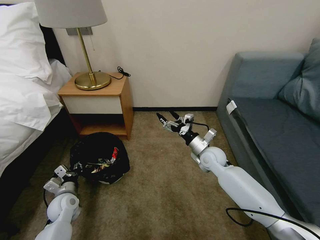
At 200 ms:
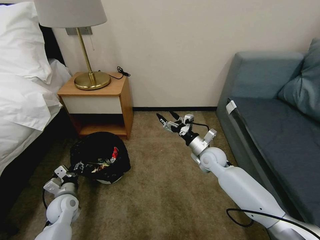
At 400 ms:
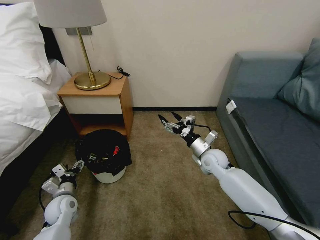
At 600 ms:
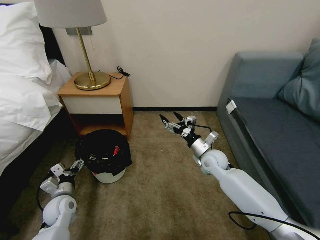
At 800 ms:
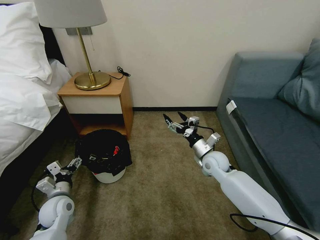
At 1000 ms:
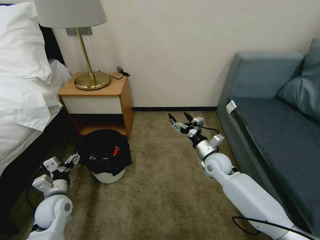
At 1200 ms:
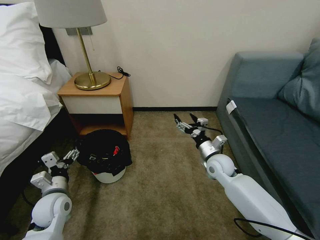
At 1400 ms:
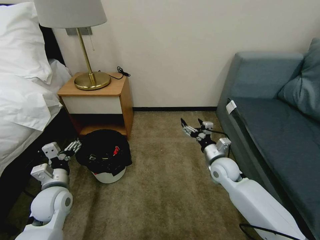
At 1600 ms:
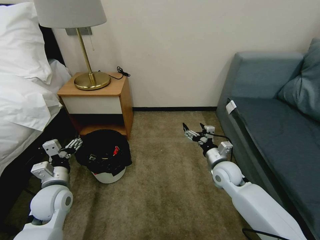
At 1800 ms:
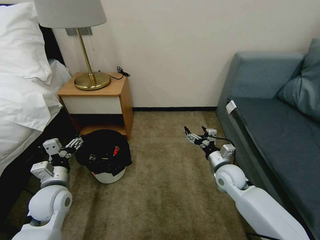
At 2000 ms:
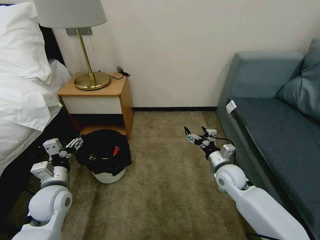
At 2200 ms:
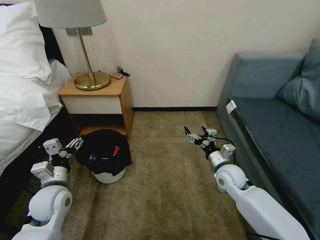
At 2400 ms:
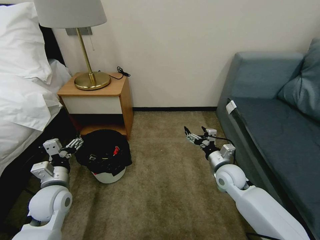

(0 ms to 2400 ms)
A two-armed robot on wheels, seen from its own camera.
Task of the whole recording: Pick up the trash bin, then pick up the garbage on the floor and place it into the trash bin.
0 ms - 1200 ms: The left gripper goes about 10 cm upward, and opens its fingers.
1200 ms - 2400 ms: The left gripper moves roughly 5 cm.

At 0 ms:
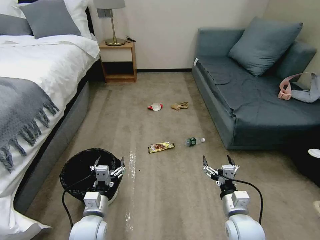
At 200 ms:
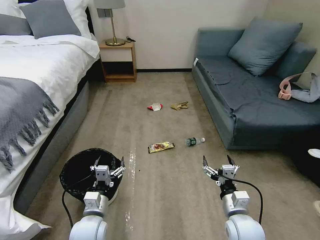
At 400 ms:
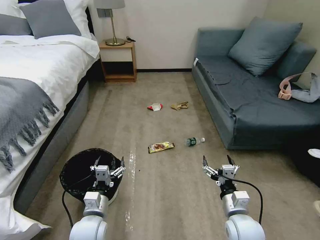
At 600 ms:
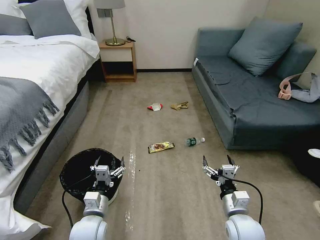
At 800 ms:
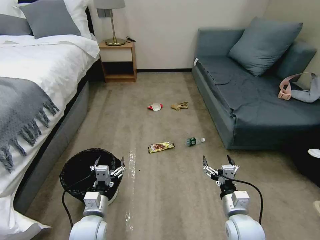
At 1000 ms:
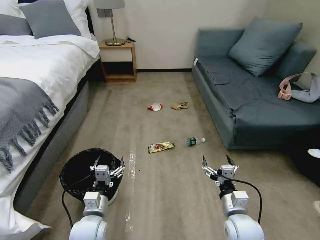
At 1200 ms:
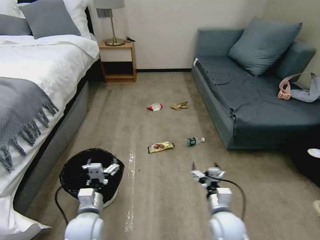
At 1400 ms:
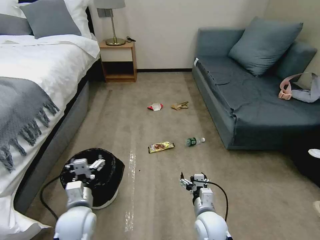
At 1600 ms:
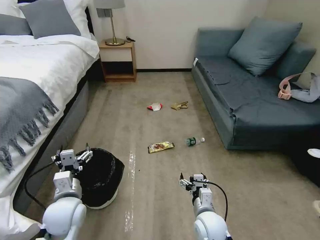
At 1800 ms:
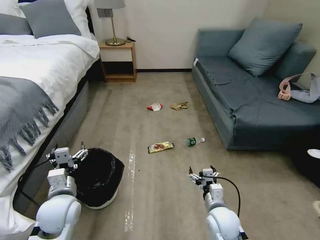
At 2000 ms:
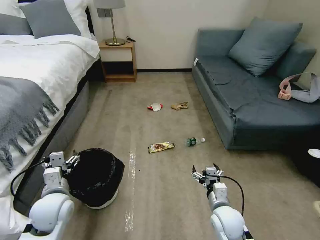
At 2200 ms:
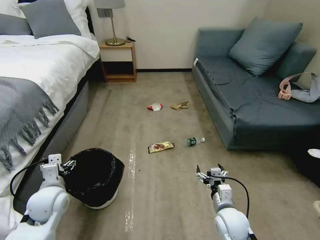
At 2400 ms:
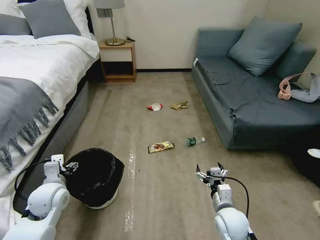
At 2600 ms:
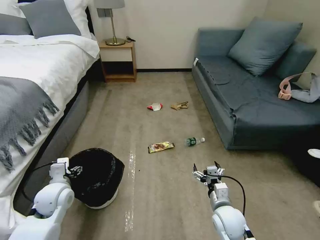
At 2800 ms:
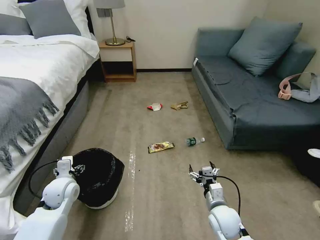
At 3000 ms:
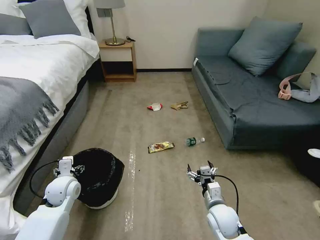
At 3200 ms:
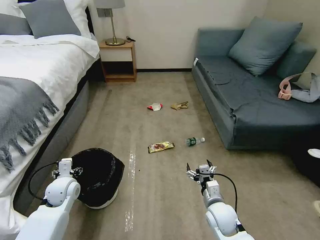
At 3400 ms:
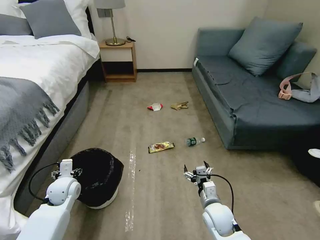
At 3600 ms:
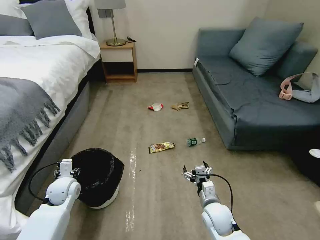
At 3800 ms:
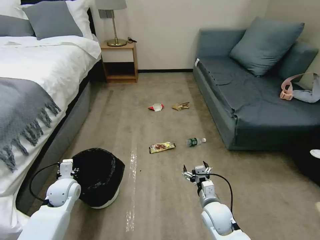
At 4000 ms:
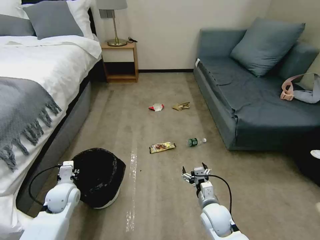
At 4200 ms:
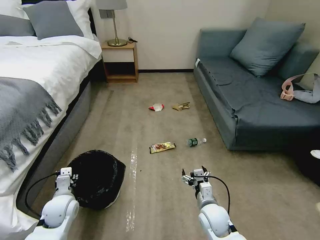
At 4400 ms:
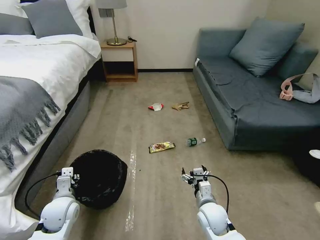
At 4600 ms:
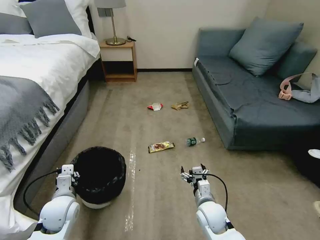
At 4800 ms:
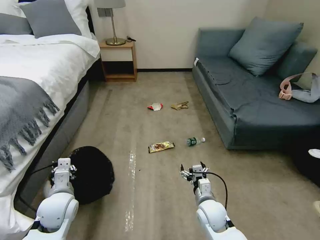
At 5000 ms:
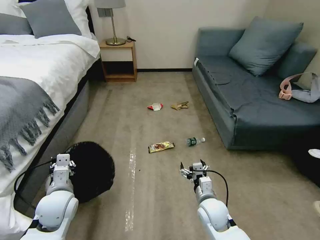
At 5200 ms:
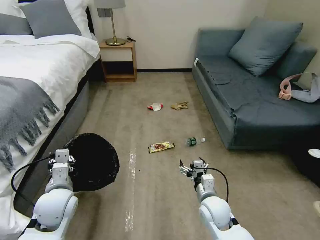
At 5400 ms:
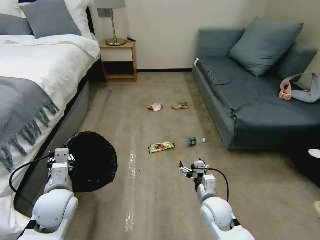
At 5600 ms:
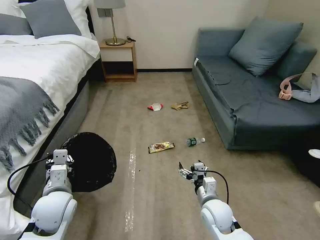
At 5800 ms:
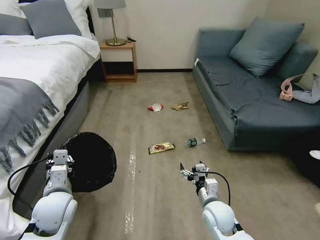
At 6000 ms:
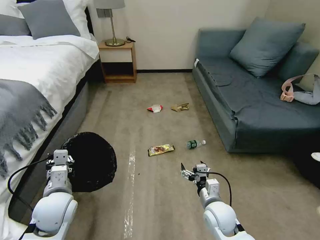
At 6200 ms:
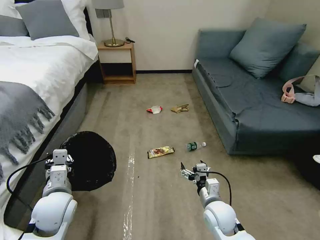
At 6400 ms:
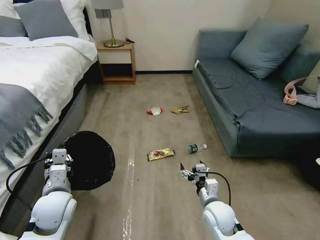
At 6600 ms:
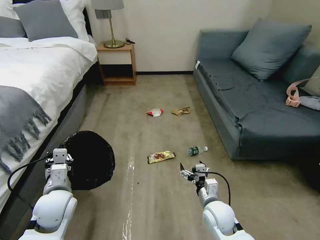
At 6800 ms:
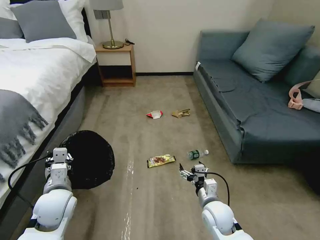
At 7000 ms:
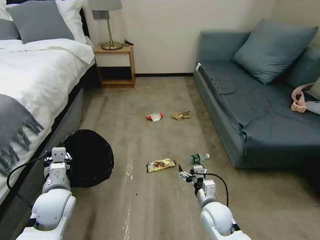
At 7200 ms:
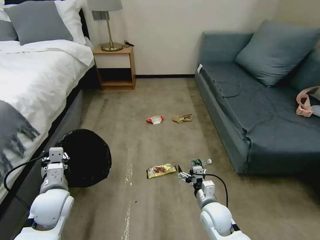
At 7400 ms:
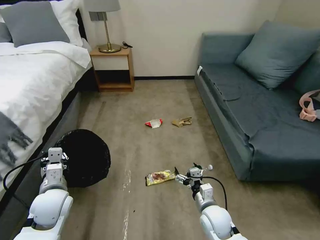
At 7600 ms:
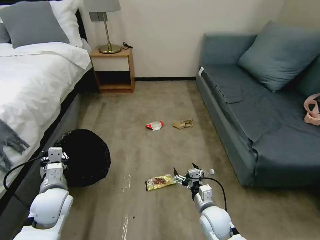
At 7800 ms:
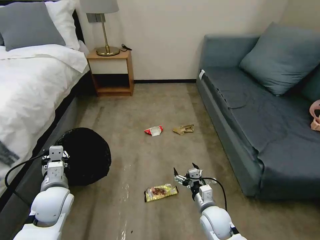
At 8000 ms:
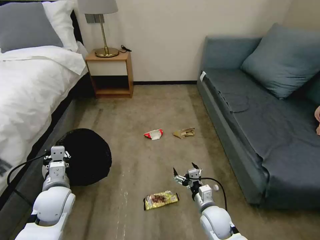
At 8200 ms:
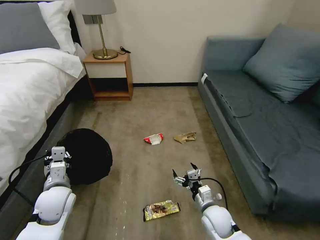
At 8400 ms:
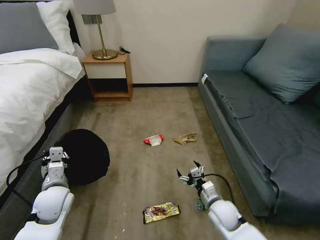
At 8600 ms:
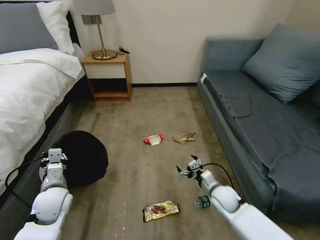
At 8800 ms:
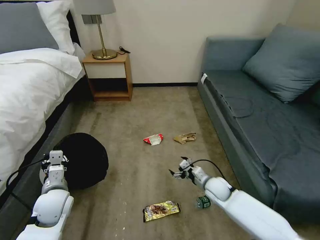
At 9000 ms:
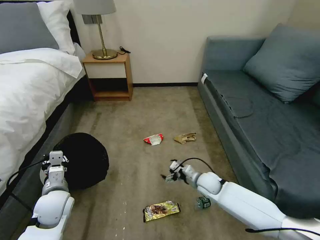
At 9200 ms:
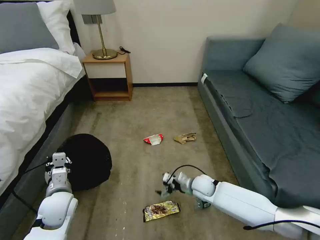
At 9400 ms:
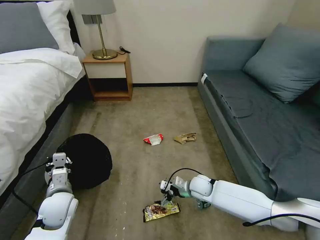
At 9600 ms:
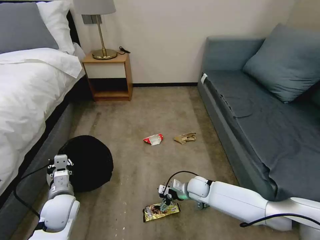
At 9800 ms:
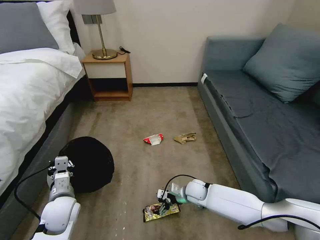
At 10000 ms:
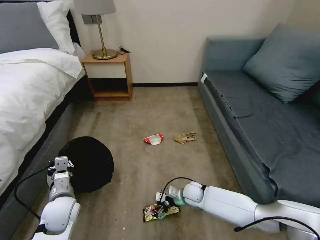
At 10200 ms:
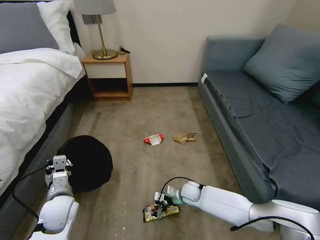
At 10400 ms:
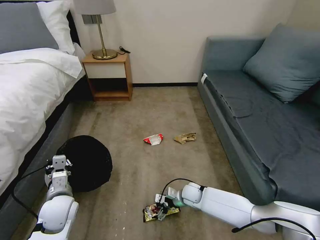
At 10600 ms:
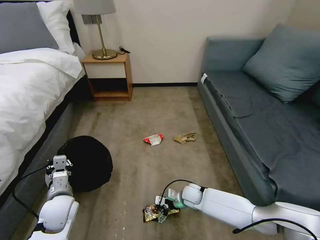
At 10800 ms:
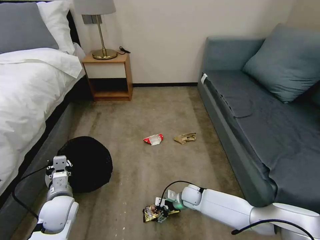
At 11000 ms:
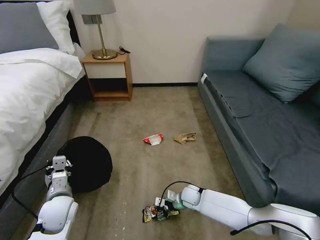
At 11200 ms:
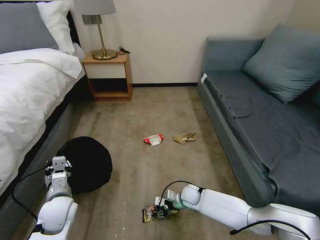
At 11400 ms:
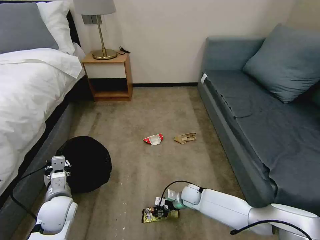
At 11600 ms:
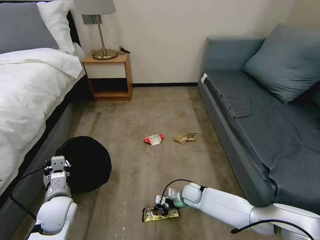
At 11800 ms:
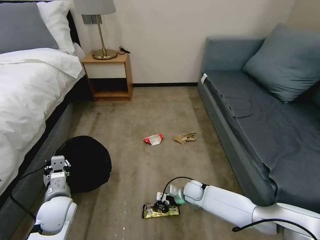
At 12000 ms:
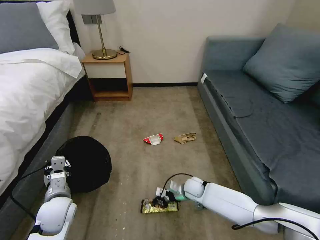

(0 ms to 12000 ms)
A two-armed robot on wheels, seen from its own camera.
Task of the whole recording: Pick up the trash bin, then pick up the garbage on the floor and place it into the trash bin.
1600 ms - 3000 ms: The left gripper goes approximately 10 cm forward and to the left. The right gripper goes some 5 cm to the right.
3000 ms - 4400 ms: The left gripper goes approximately 5 cm backward, and closes its fingers.
4400 ms - 6000 ms: The left gripper travels upward by roughly 10 cm.
7600 ms - 9000 ms: The right gripper moves forward, approximately 15 cm.
9000 ms - 10400 ms: The right gripper travels downward and to the left by approximately 10 cm.
10400 ms - 12000 ms: The right gripper closes its fingers.

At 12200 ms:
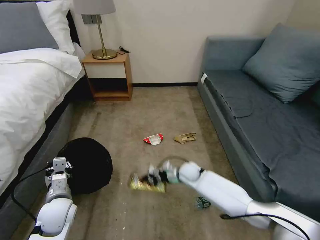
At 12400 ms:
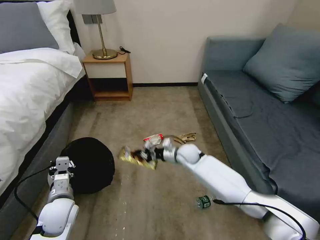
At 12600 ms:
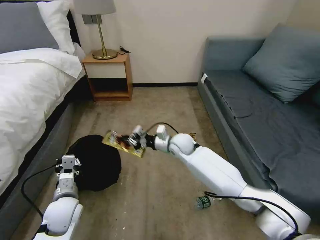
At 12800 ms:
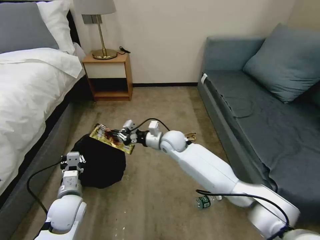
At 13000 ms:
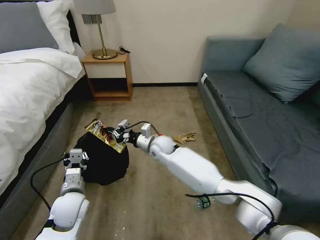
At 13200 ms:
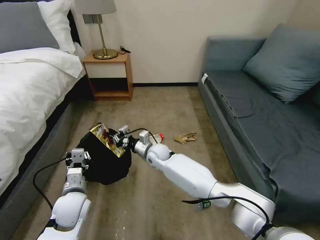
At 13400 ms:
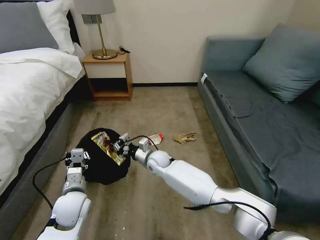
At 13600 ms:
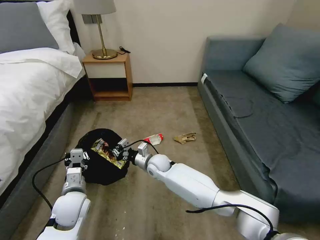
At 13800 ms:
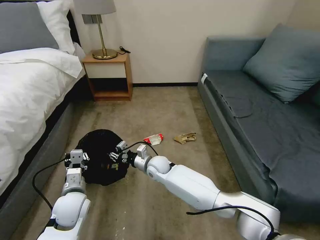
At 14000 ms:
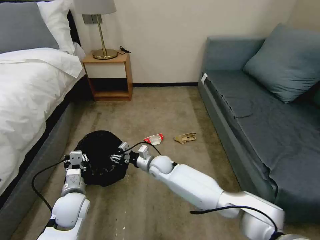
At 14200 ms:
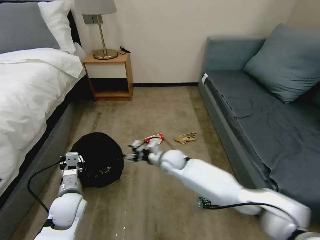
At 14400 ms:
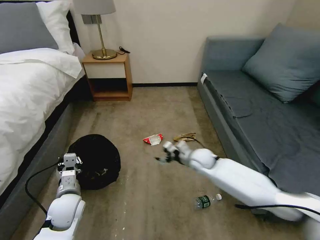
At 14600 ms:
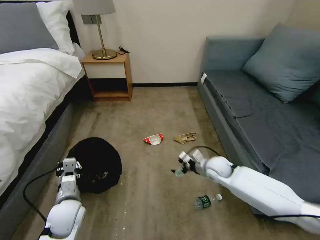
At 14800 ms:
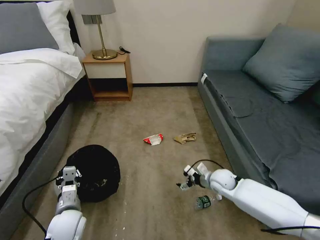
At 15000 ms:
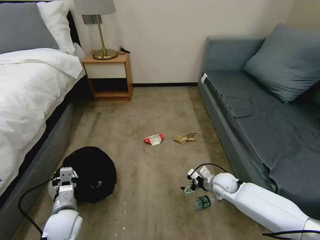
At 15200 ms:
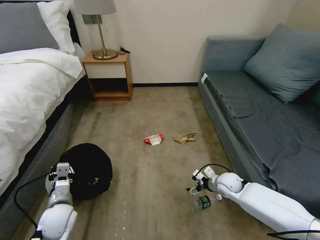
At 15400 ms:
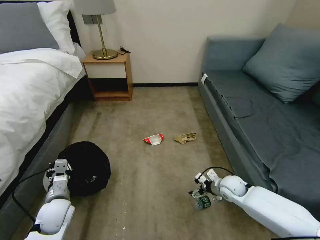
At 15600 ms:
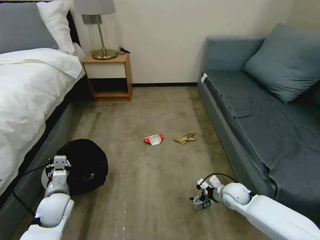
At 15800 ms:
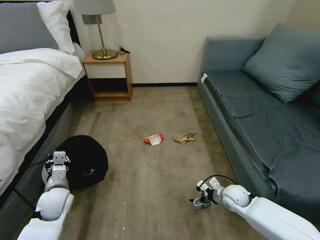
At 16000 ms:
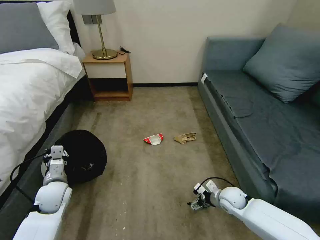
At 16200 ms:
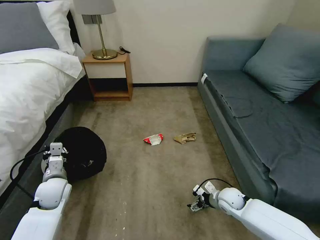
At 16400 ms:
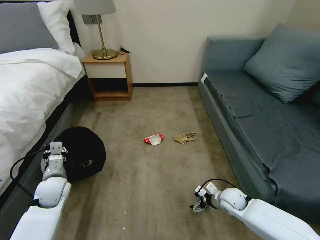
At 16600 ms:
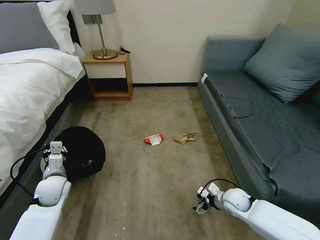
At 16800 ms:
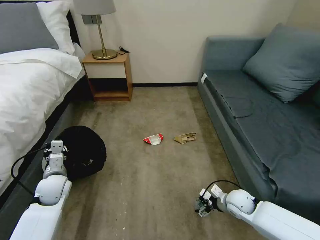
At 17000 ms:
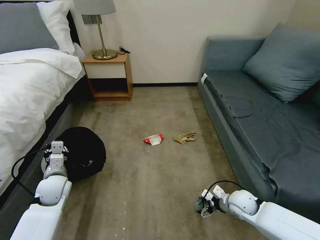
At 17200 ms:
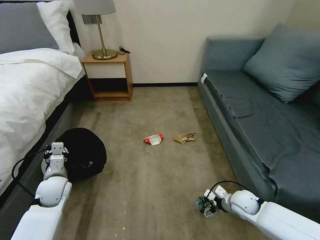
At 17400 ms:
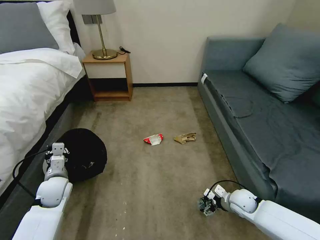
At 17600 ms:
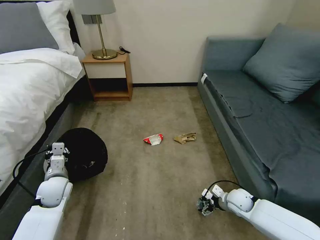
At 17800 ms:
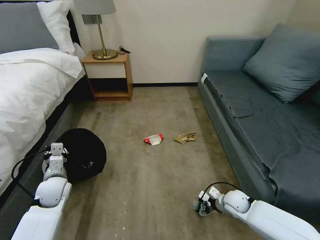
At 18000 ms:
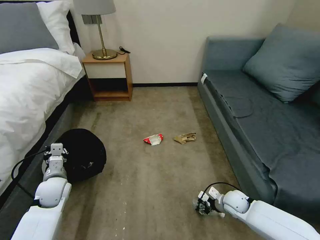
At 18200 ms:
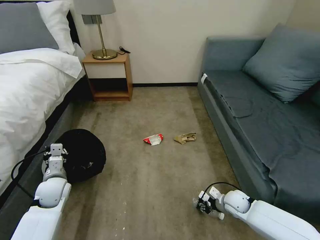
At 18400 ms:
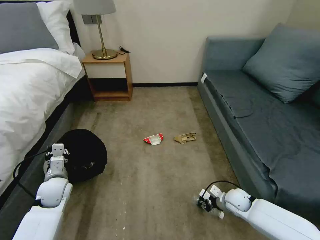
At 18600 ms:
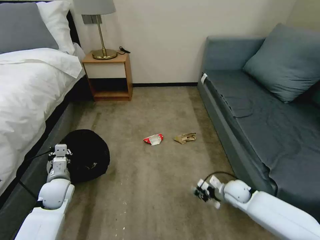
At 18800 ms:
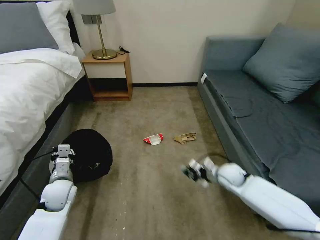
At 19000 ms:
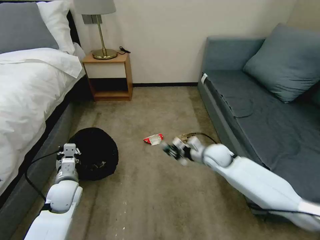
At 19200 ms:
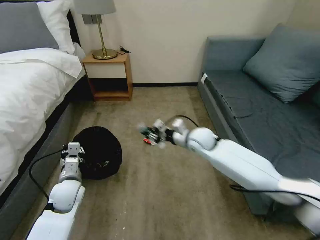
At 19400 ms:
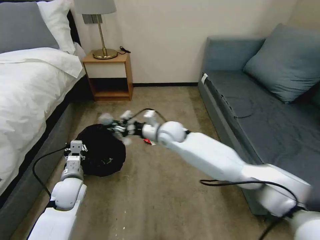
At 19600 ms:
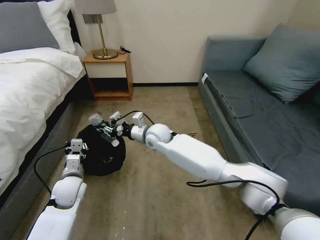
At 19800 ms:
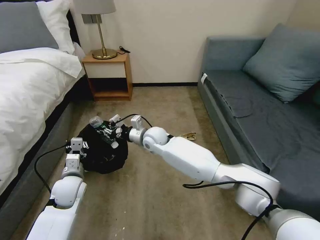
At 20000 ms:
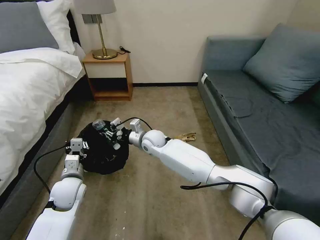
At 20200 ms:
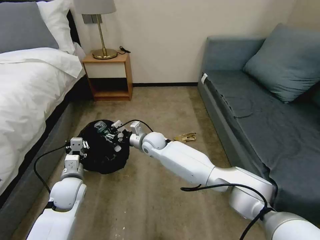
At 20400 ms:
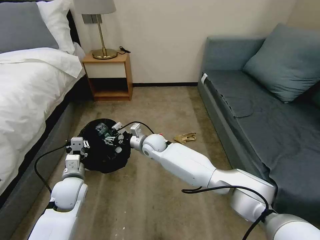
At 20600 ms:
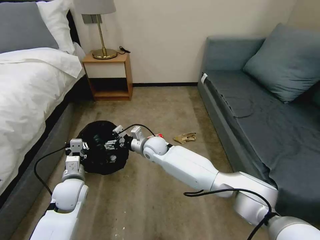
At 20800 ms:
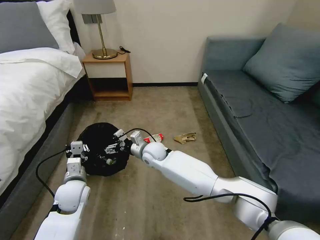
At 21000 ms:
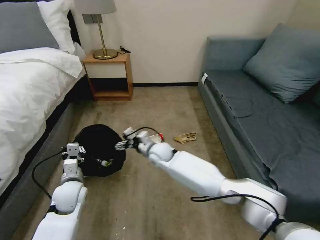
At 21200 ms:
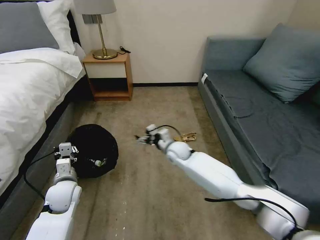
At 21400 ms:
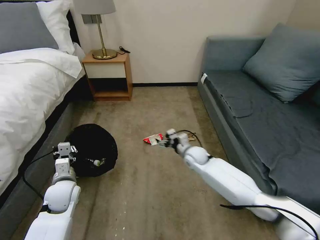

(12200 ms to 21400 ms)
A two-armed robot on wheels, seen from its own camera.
Task of the whole recording: Pick up the trash bin, then pick up the garbage on the floor and place it into the trash bin.
12200 ms - 13800 ms: The right gripper travels to the left by roughly 15 cm, and goes upward and returns, roughly 15 cm each way.
13800 ms - 15200 ms: The left gripper ends up approximately 5 cm from where it was. Meanwhile the right gripper travels to the right by roughly 30 cm, and opens its fingers.
15200 ms - 16800 ms: The right gripper moves backward, about 5 cm. Meanwhile the left gripper heads forward, covering approximately 10 cm.
16800 ms - 18400 ms: The right gripper closes.
18400 ms - 19800 ms: The left gripper shifts about 5 cm to the right. Meanwhile the right gripper goes roughly 40 cm to the left, upward and forward.
19800 ms - 21400 ms: The right gripper is displaced to the right and downward by approximately 20 cm, and opens up.
